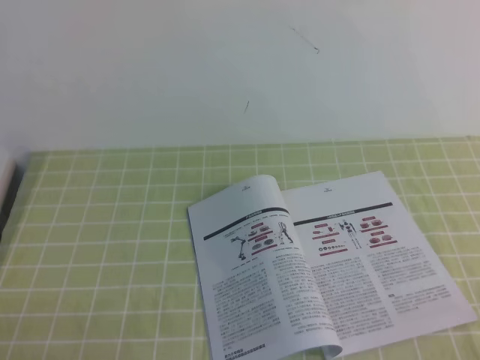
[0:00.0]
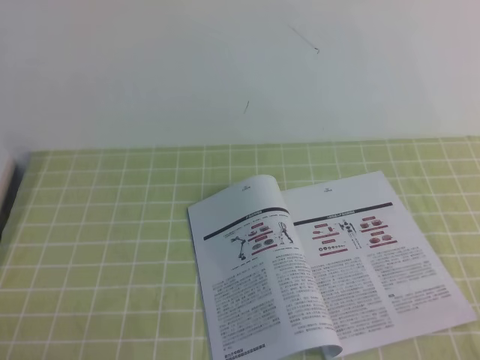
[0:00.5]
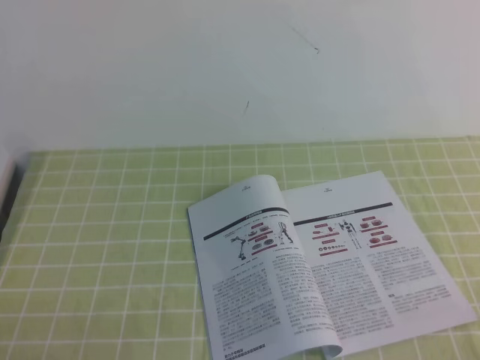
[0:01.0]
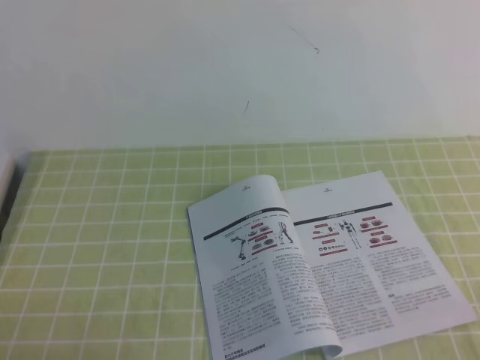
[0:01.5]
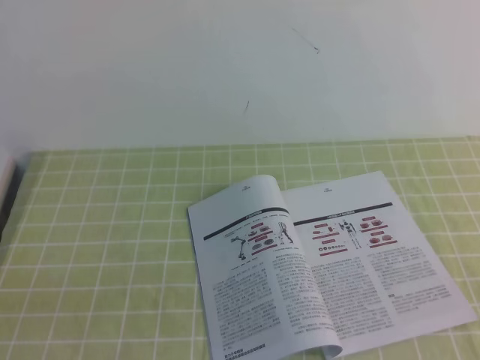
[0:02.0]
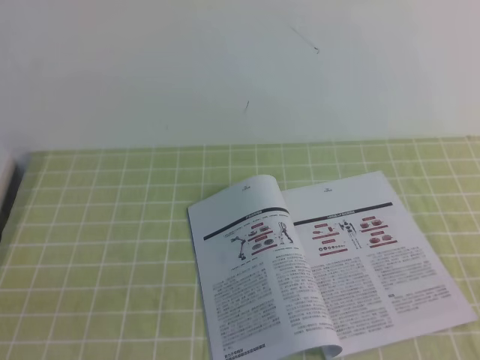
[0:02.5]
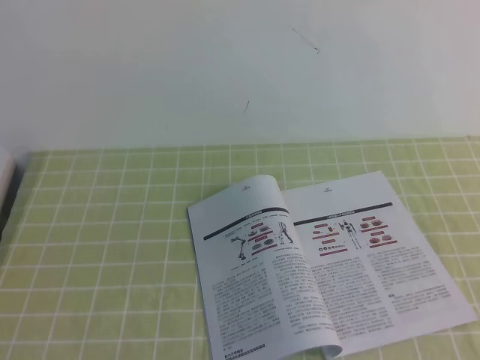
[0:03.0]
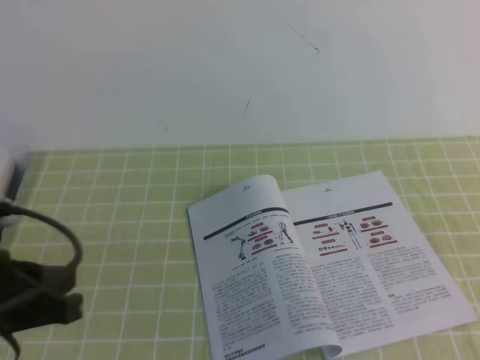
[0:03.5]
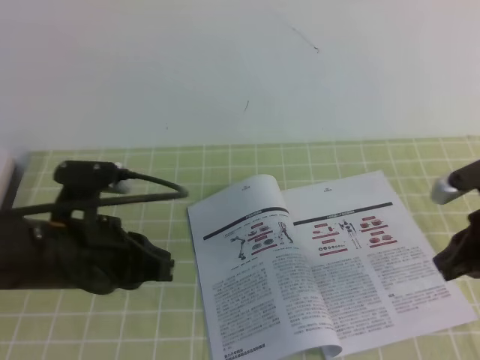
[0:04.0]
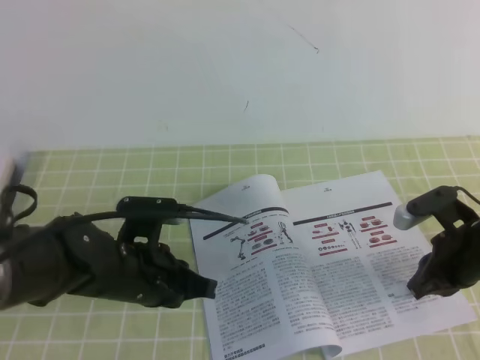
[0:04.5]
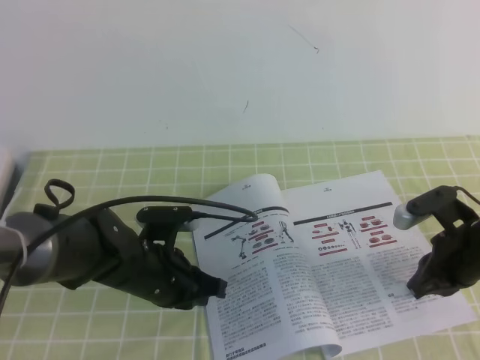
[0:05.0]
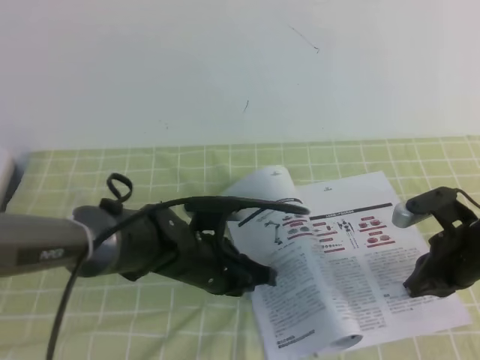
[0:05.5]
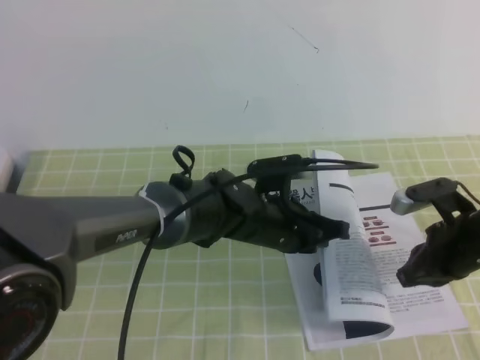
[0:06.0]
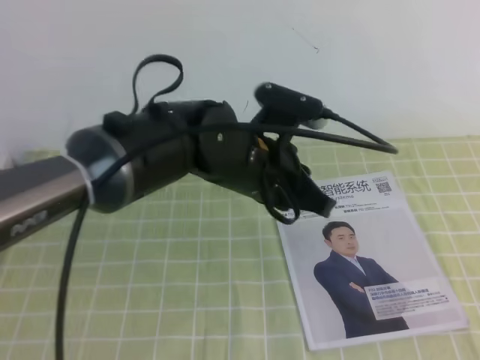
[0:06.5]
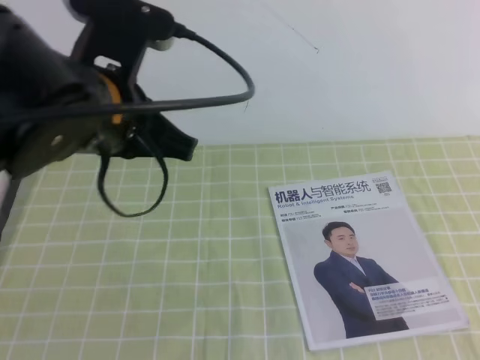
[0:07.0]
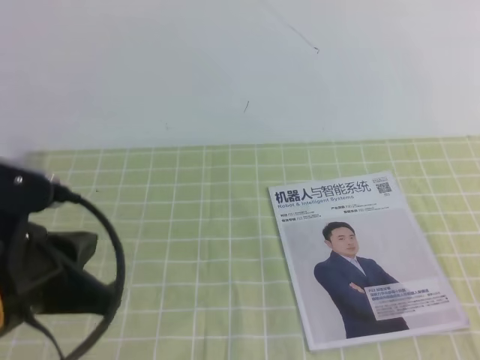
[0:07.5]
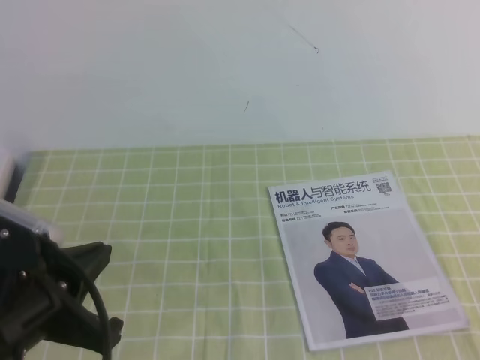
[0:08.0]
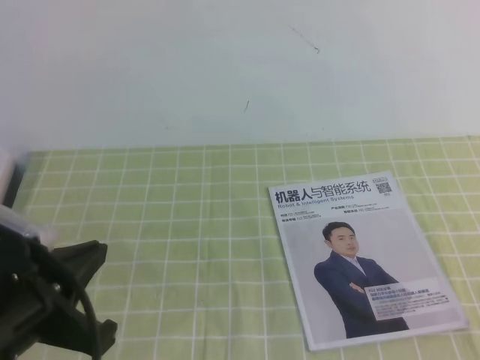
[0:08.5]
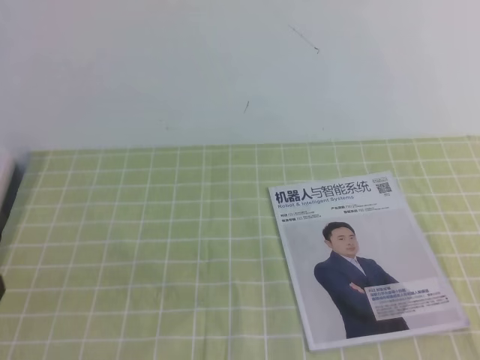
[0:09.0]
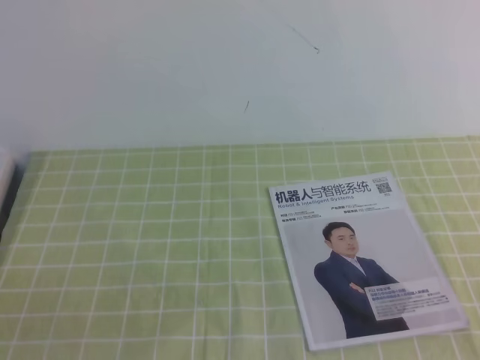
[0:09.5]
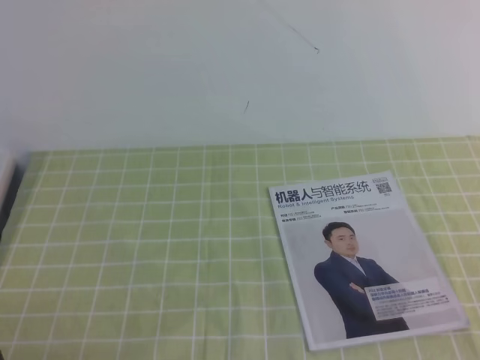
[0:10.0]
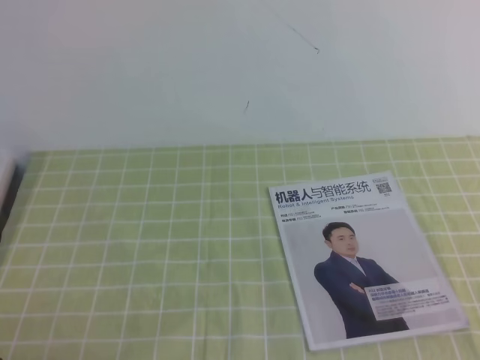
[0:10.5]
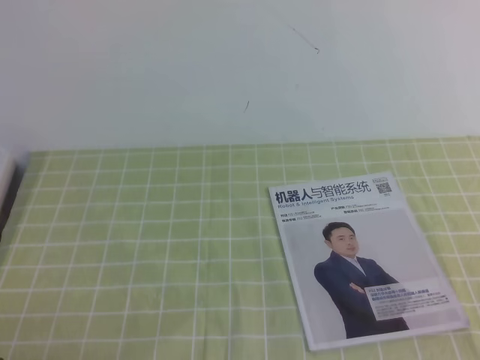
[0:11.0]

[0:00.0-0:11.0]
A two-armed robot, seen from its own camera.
Task of the whole recording: on the green tablecloth, hold the book with one hand and close it with the other.
0:02.0 to 0:03.5: The left gripper moves forward and upward, roughly 10 cm.
0:03.5 to 0:05.5: The left gripper shifts some 30 cm to the right, downward and forward. Meanwhile the right gripper goes approximately 20 cm downward, forward and to the left.
0:05.5 to 0:07.5: The left gripper goes roughly 25 cm upward, backward and to the left; the right gripper heads backward and upward, covering some 30 cm.
0:07.5 to 0:09.0: The left gripper is displaced backward and to the left by some 10 cm.
